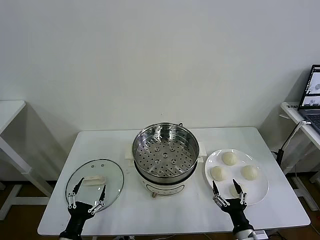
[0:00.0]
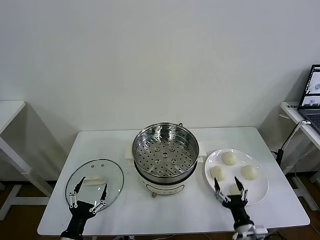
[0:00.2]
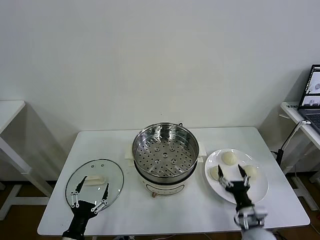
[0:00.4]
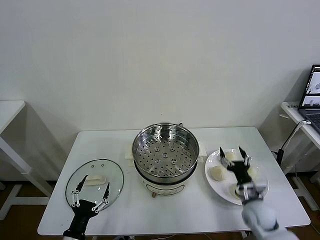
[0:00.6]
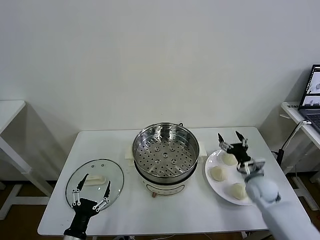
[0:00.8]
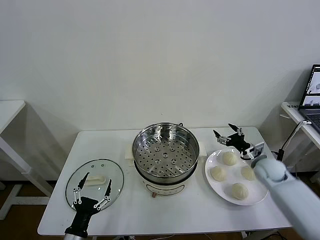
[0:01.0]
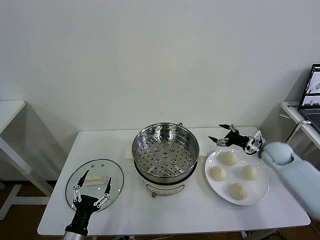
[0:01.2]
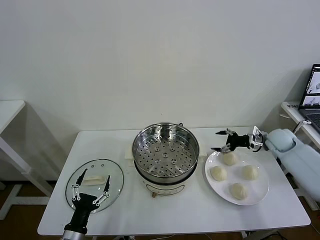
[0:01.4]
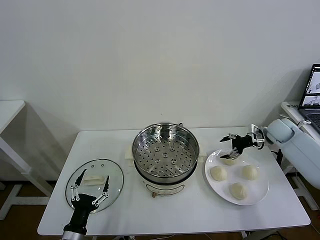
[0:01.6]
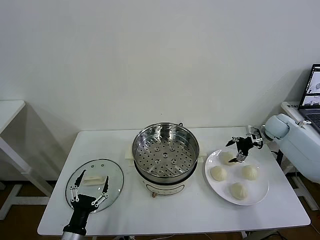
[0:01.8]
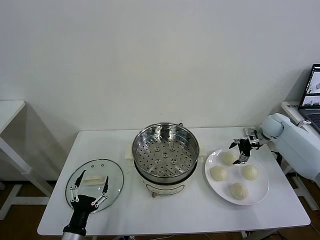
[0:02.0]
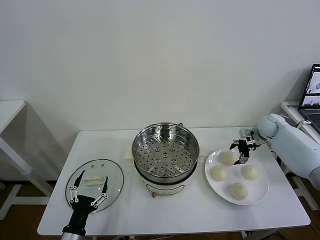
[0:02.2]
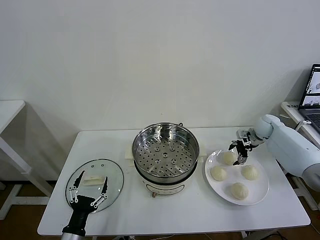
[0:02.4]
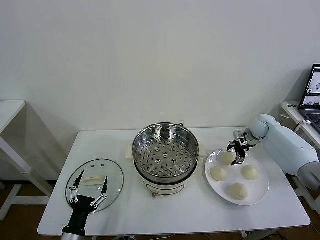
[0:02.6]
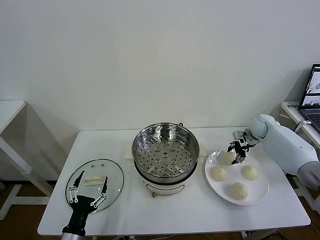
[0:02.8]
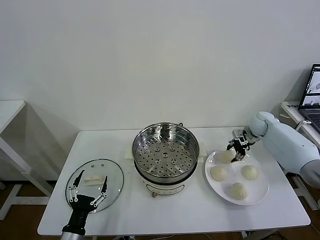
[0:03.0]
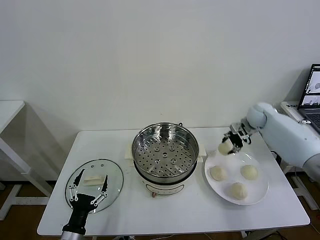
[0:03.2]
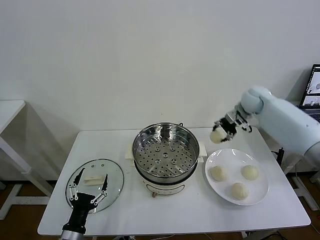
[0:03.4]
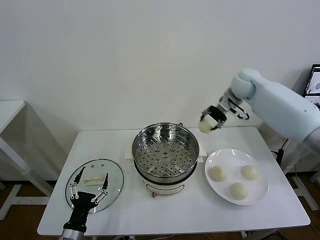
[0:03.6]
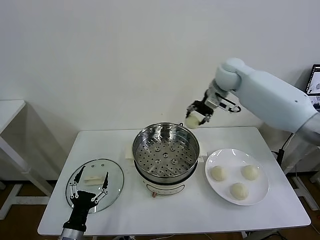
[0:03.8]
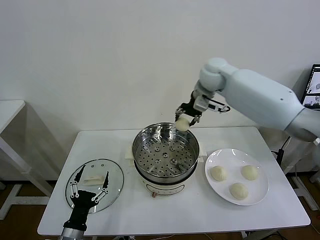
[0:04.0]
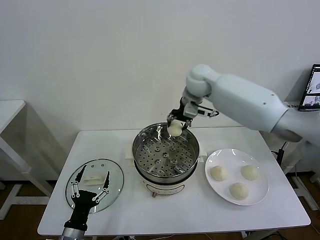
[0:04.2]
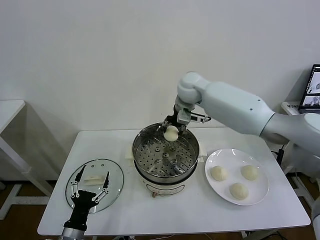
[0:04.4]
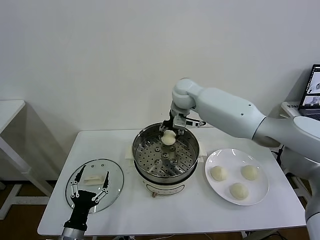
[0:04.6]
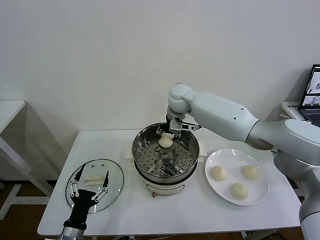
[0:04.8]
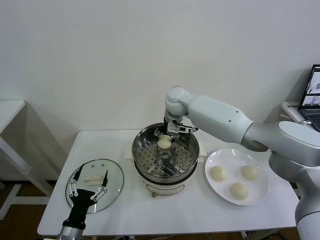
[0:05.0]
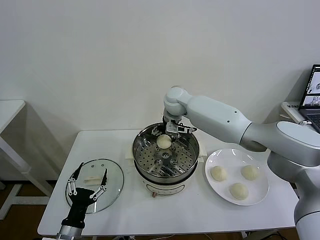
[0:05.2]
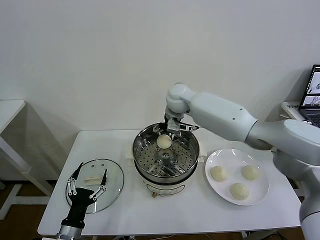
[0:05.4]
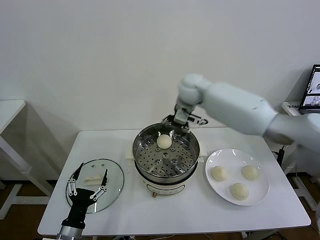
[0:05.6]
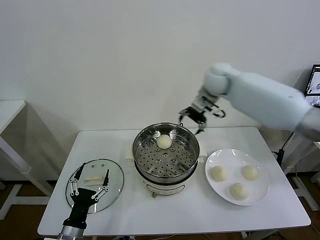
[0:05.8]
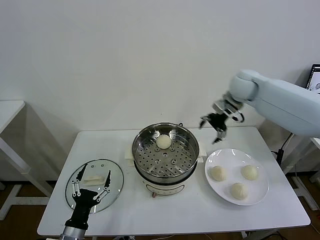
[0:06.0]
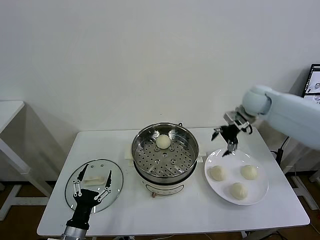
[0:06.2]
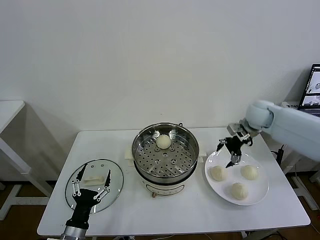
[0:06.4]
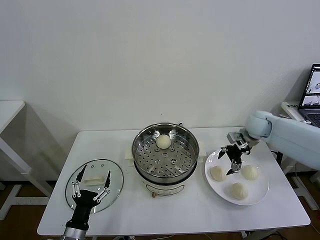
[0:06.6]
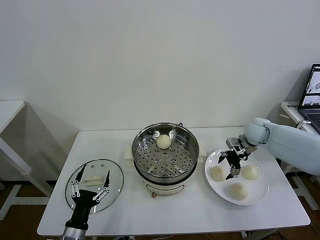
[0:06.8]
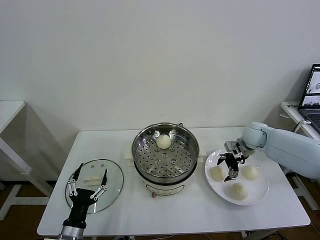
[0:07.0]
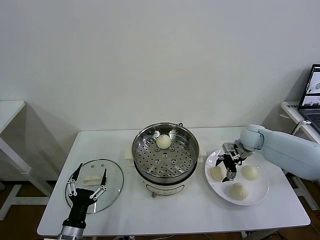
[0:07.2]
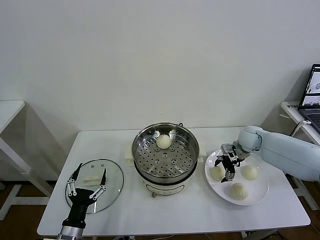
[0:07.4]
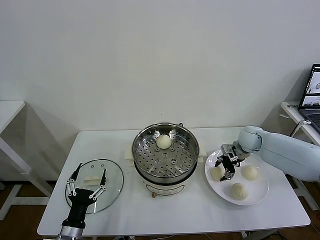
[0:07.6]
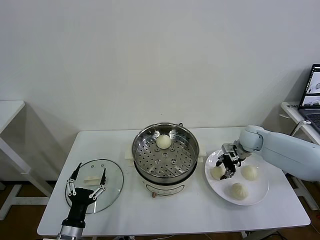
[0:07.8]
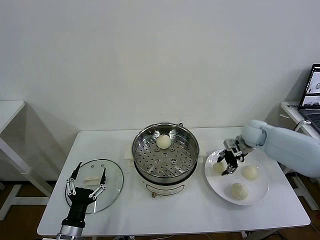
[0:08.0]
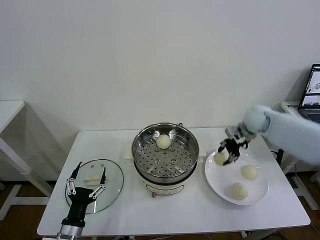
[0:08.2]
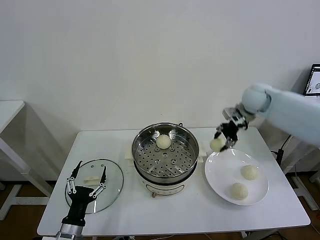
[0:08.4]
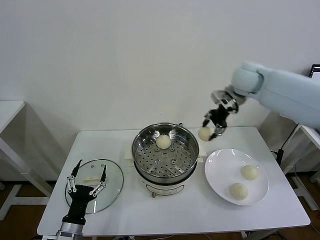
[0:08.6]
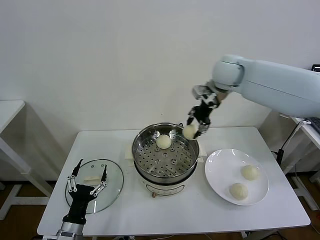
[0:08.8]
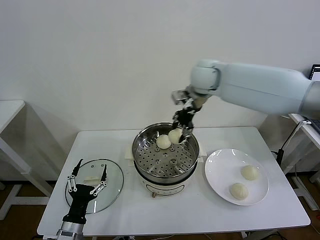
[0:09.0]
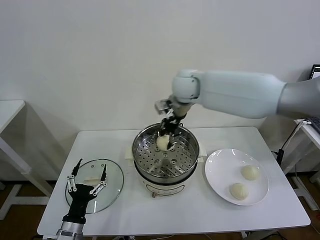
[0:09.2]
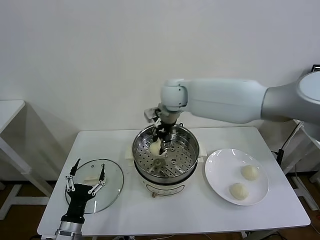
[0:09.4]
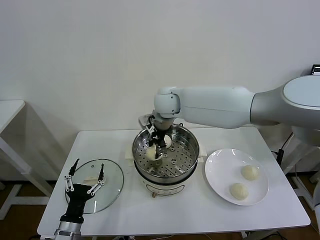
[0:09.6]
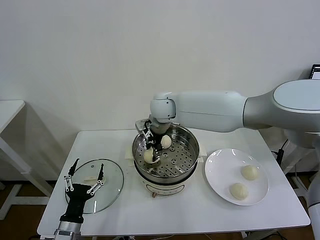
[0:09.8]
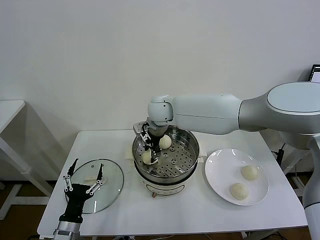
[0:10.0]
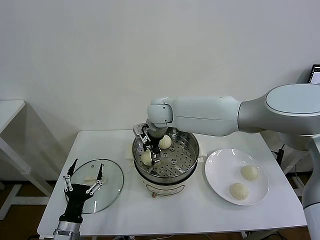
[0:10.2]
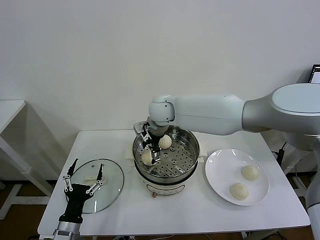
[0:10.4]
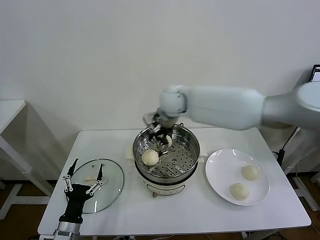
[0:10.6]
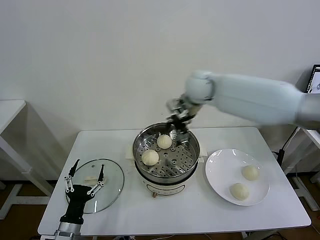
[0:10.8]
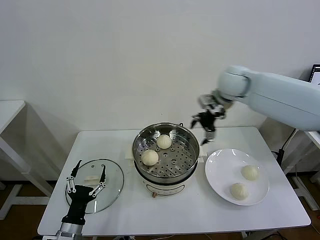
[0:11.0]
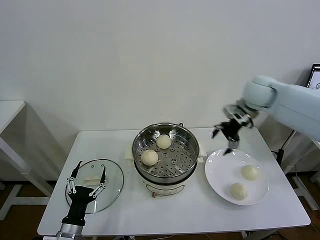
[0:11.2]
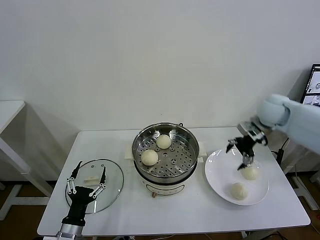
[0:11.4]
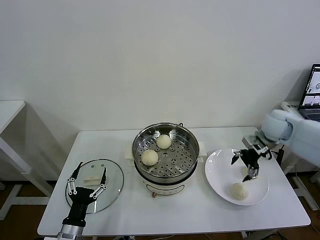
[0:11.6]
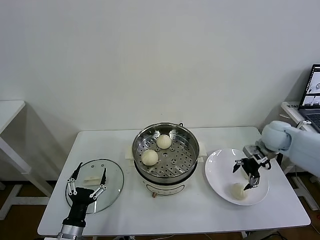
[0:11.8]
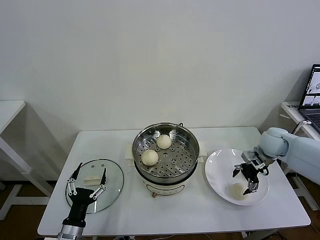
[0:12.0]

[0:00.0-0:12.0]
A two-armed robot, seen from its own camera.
Task of the whole recording: take steamed baozi put them in steamer then cover it.
Step, 0:00.0 to 0:02.6: Grasp the baozi in the plate with right gripper.
Step, 0:03.0 to 0:05.2: Place the baozi on the steamer with right gripper.
Step, 0:05.4 to 0:07.6: Grasp the baozi in the plate with right gripper.
Step, 0:07.8 to 0:10.2: Place the baozi on the steamer with right gripper.
0:01.6 to 0:03.0: The right gripper is displaced to the left by roughly 5 cm, and closes up.
0:03.0 to 0:04.4: The right gripper is displaced to the left and upward by some 35 cm.
0:04.4 to 0:06.0: The right gripper is displaced to the right by approximately 20 cm, and opens.
0:06.0 to 0:07.6: The right gripper is displaced downward by some 20 cm, and closes up.
0:07.6 to 0:09.0: The right gripper shifts some 35 cm to the left and upward.
0:09.0 to 0:10.4: The right gripper moves to the left and downward, some 10 cm, and opens.
0:10.4 to 0:12.0: The right gripper travels to the right by about 40 cm.

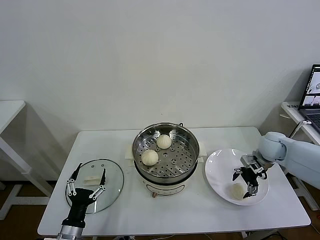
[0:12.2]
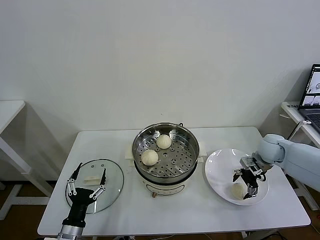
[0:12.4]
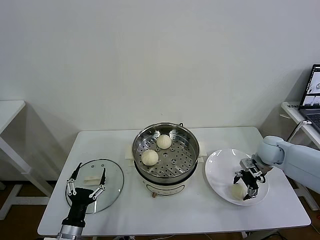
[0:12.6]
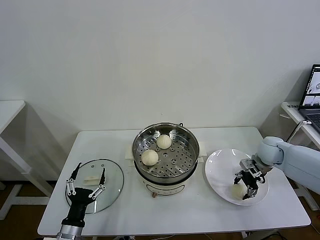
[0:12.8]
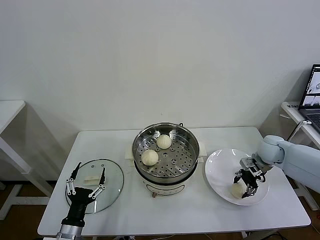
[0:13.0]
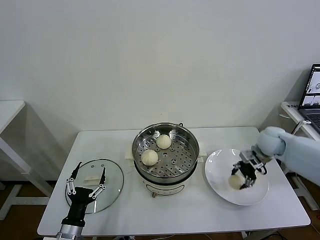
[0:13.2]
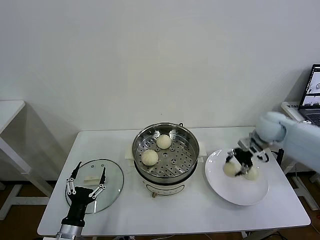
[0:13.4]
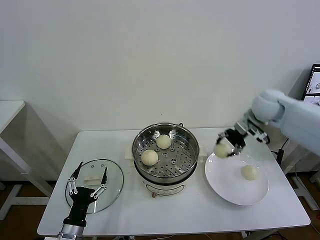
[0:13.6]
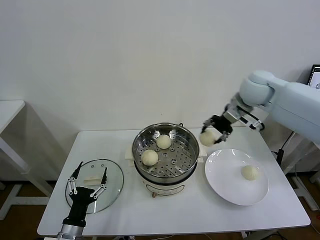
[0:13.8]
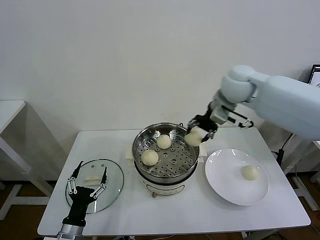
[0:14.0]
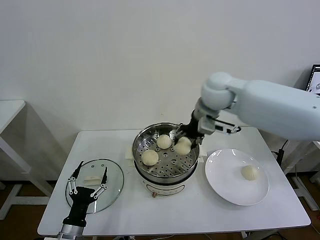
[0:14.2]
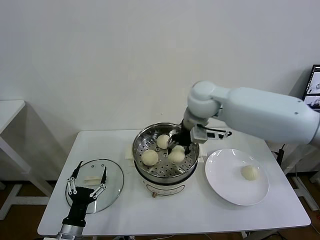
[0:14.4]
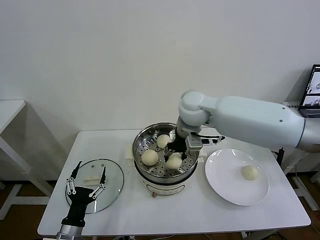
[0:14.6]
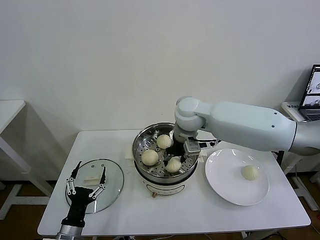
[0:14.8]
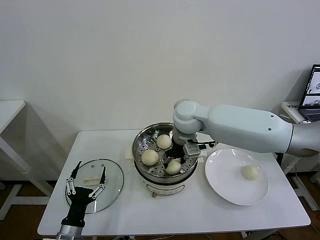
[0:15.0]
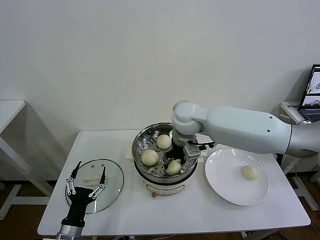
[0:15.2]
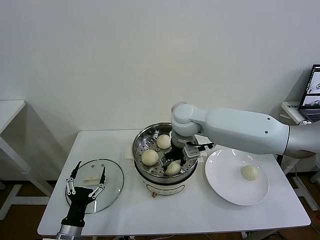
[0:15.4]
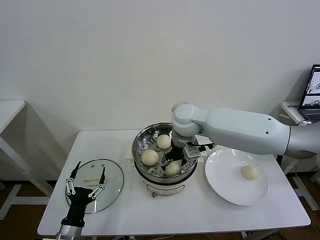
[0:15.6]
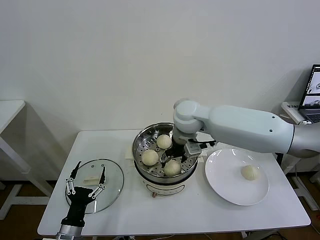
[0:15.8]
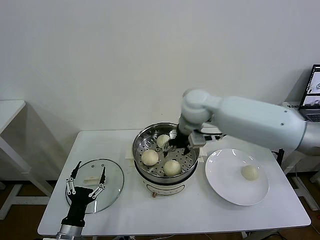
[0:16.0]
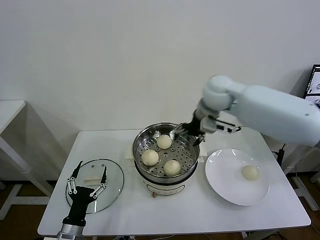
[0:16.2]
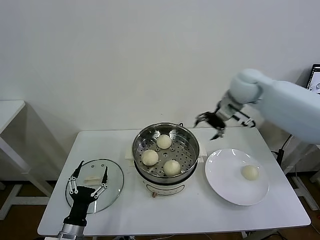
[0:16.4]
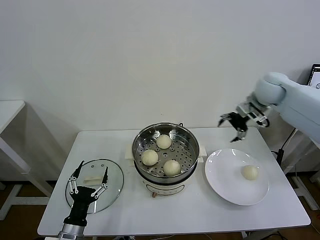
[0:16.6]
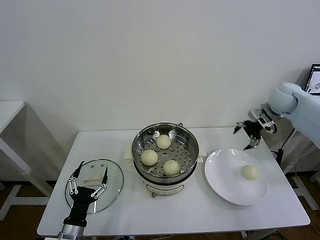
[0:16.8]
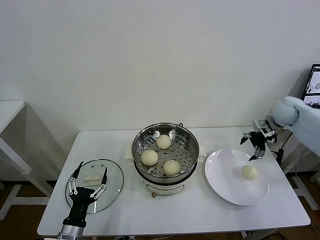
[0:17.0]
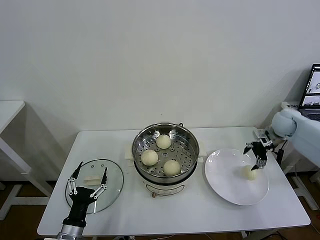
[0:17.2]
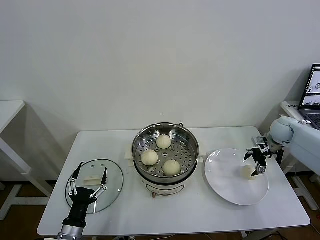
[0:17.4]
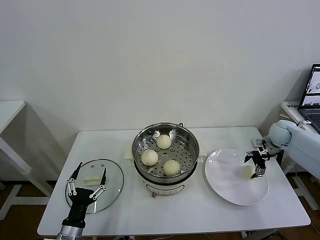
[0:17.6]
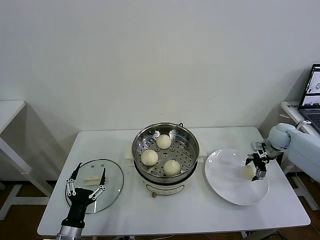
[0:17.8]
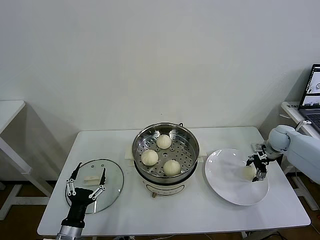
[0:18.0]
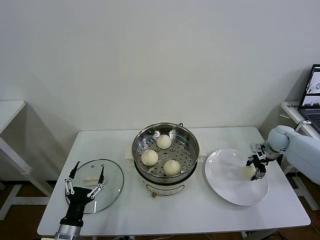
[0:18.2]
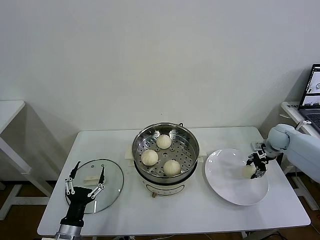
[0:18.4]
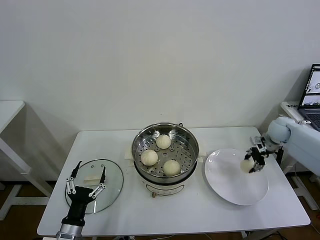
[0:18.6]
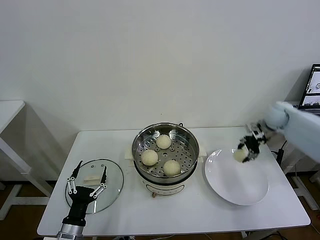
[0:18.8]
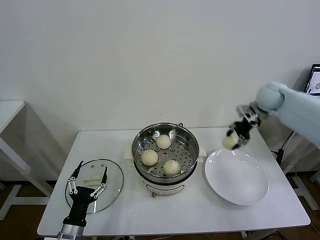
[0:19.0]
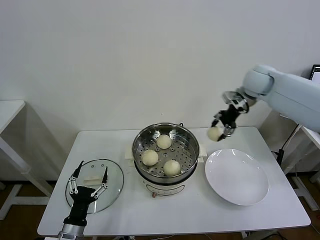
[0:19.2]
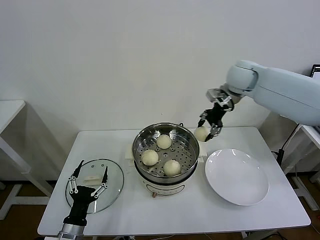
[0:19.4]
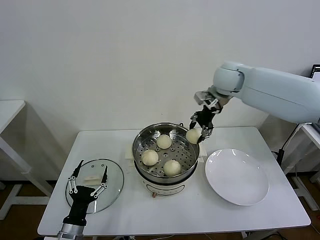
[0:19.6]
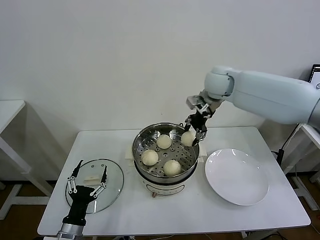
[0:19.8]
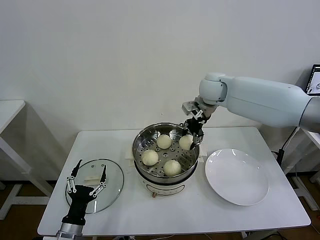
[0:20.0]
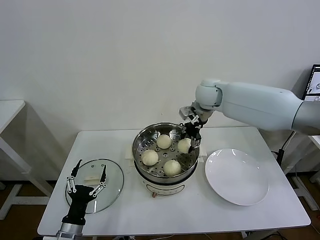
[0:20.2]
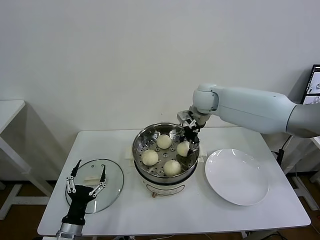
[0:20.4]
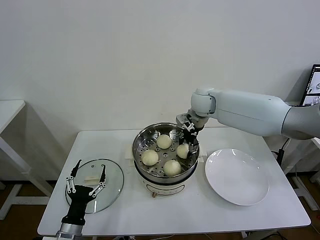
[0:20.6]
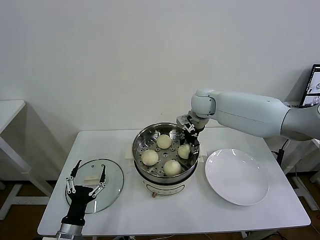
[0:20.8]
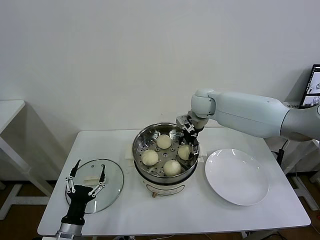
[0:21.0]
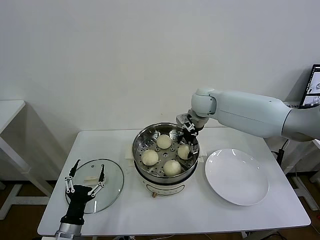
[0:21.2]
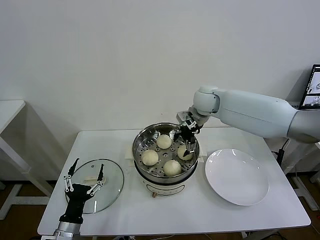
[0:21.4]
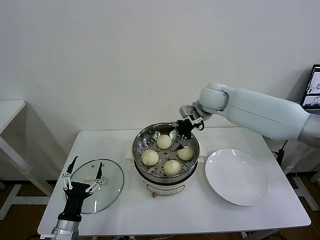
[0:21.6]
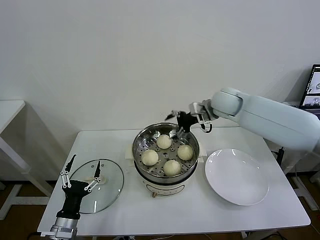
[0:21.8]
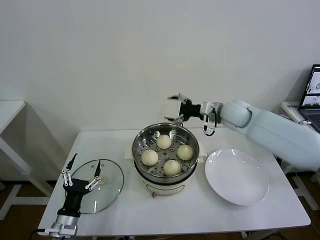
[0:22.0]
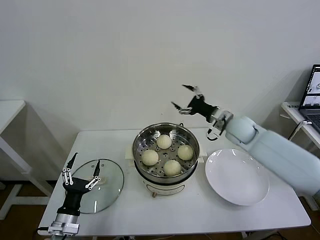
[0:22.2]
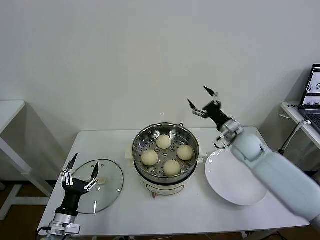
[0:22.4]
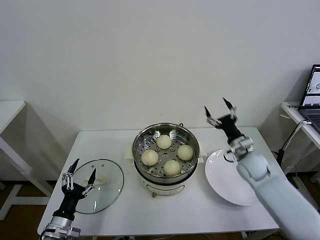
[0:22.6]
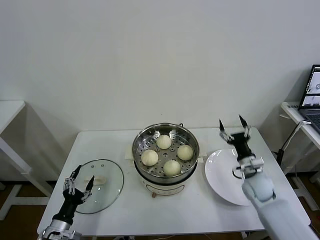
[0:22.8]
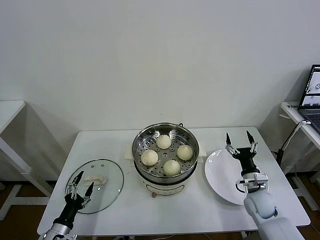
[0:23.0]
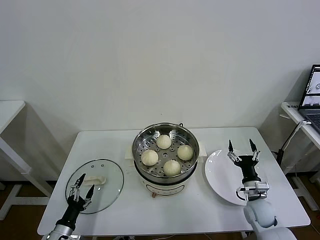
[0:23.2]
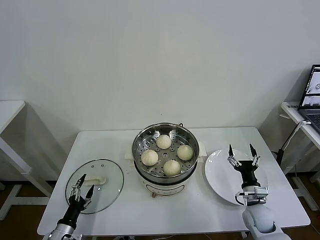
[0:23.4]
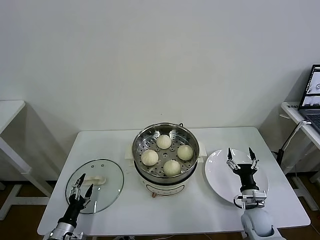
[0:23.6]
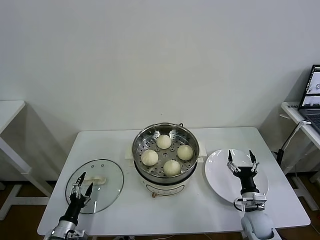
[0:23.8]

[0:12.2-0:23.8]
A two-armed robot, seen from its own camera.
Task of the whole recording: take steamed baozi put them in steamer then cover it.
Step, 0:13.0 to 0:15.6: Place the baozi on the steamer with right gripper.
Step, 0:15.8 to 0:18.2: Grasp the baozi in the plate with right gripper.
Step, 0:18.4 to 0:21.2: Place the baozi on the steamer with right gripper.
0:12.2 to 0:13.6: The right gripper travels upward and to the left by some 20 cm, and closes up.
0:13.6 to 0:15.0: The right gripper moves to the left, some 25 cm.
0:15.0 to 0:16.6: The right gripper moves to the right, about 30 cm, and opens up.
0:16.6 to 0:18.0: The right gripper shifts some 25 cm downward and to the right.
0:18.0 to 0:19.4: The right gripper moves upward and to the left, roughly 35 cm, and closes its fingers.
0:19.4 to 0:21.0: The right gripper heads downward and to the left, covering approximately 15 cm, and opens up.
0:21.0 to 0:22.4: The right gripper moves to the right, downward and backward, some 20 cm.
0:22.4 to 0:23.8: The right gripper heads downward and backward, covering about 25 cm; the left gripper is displaced downward by about 10 cm.
